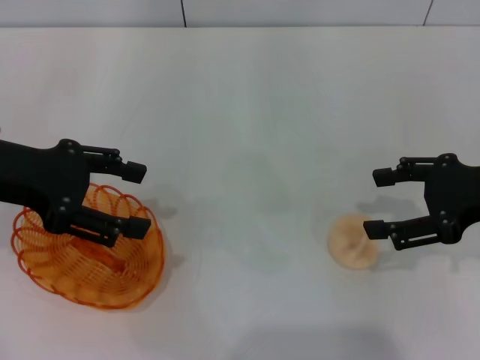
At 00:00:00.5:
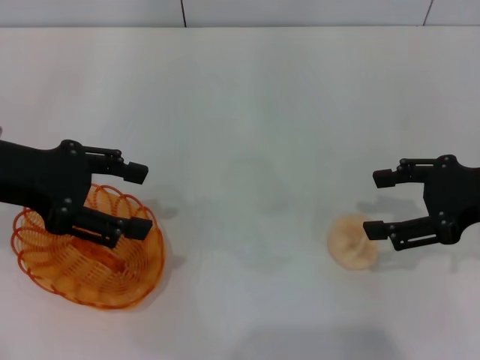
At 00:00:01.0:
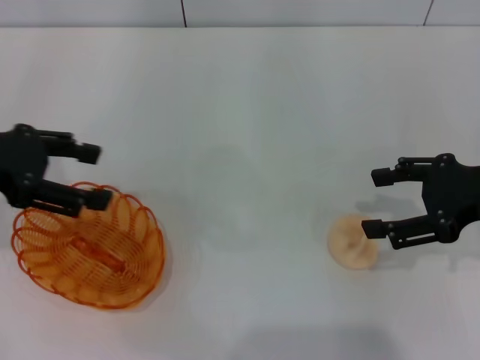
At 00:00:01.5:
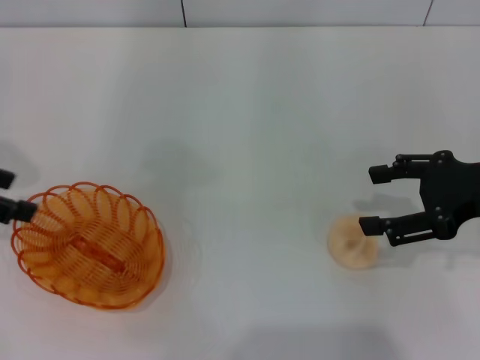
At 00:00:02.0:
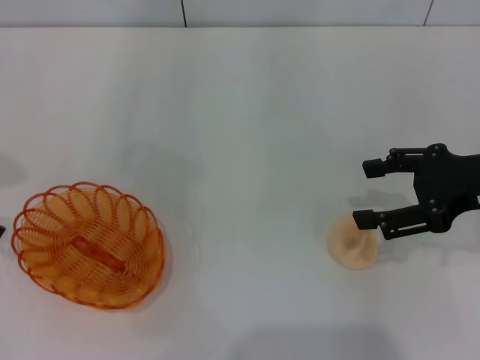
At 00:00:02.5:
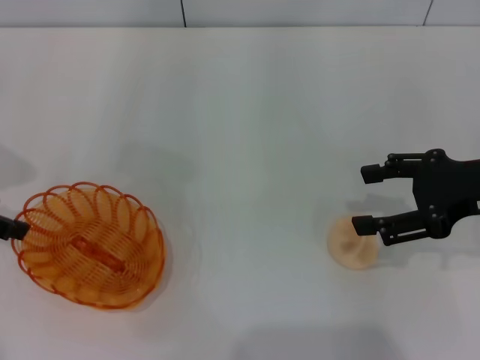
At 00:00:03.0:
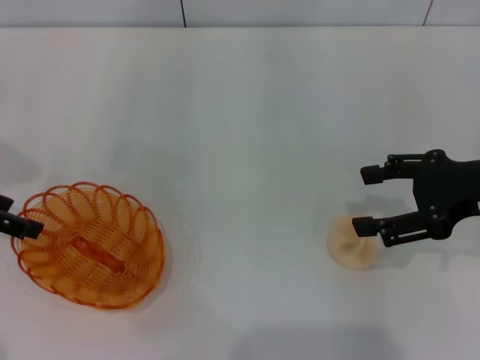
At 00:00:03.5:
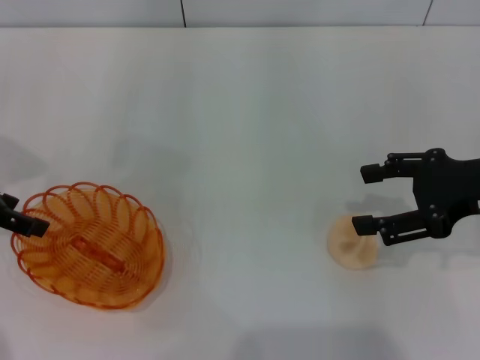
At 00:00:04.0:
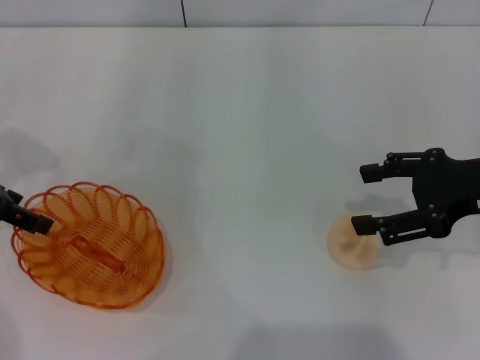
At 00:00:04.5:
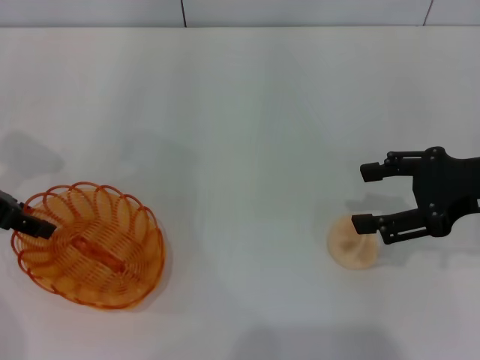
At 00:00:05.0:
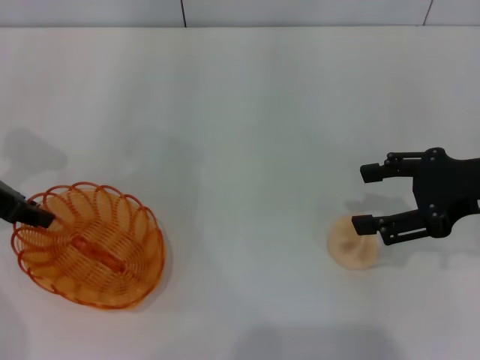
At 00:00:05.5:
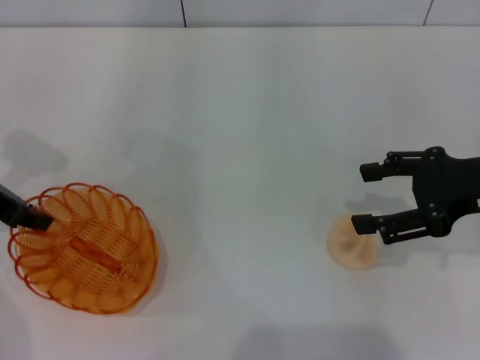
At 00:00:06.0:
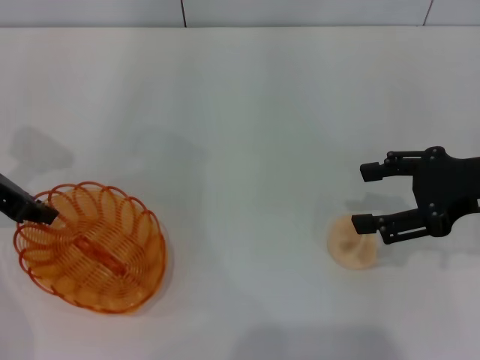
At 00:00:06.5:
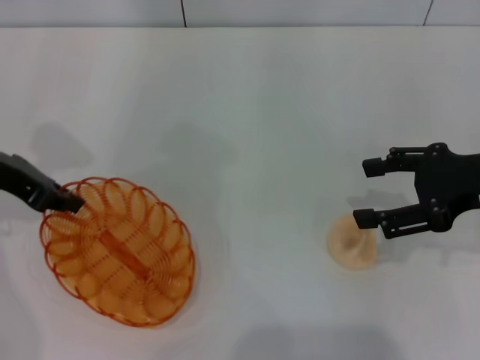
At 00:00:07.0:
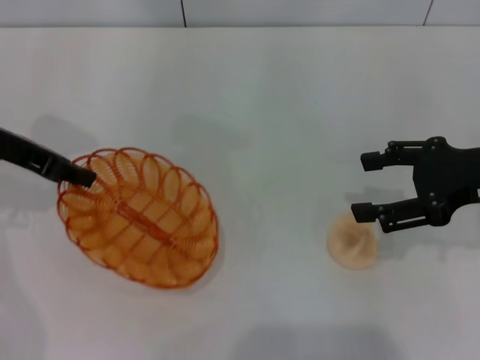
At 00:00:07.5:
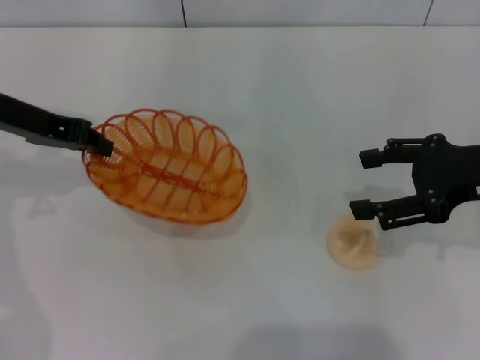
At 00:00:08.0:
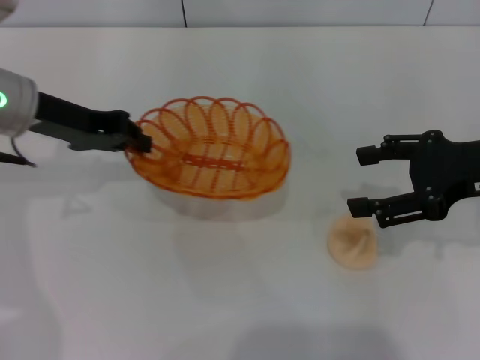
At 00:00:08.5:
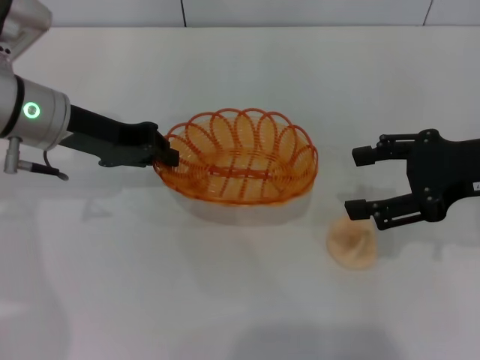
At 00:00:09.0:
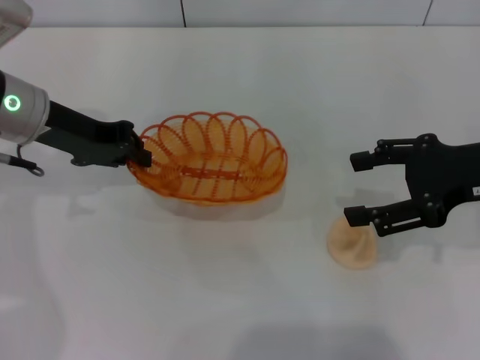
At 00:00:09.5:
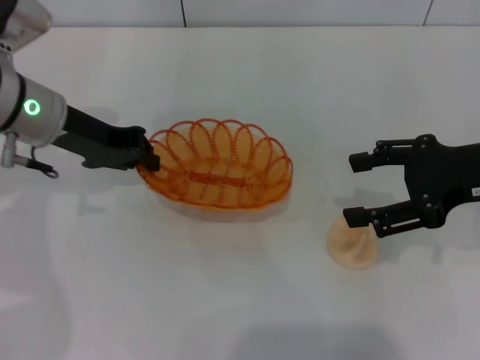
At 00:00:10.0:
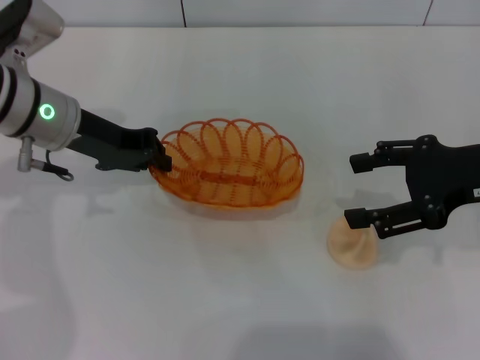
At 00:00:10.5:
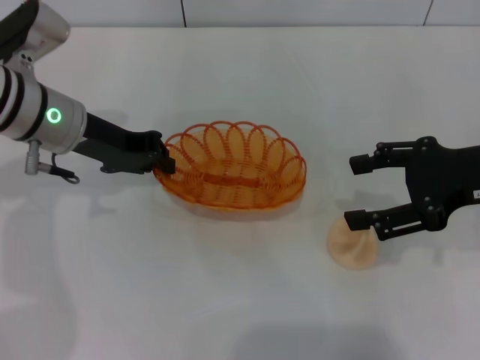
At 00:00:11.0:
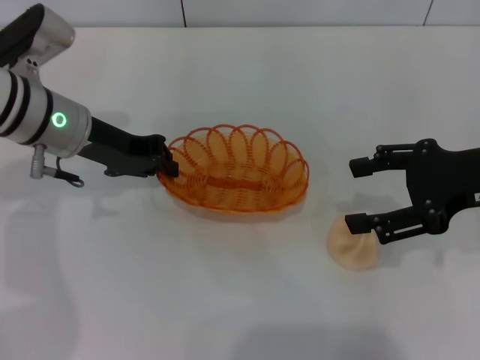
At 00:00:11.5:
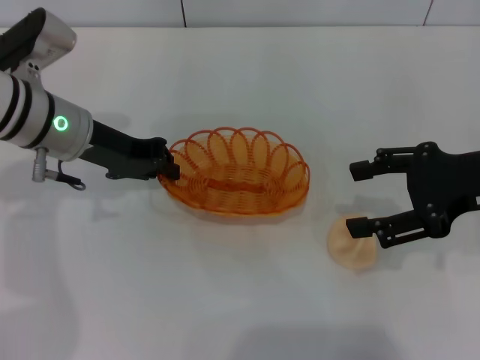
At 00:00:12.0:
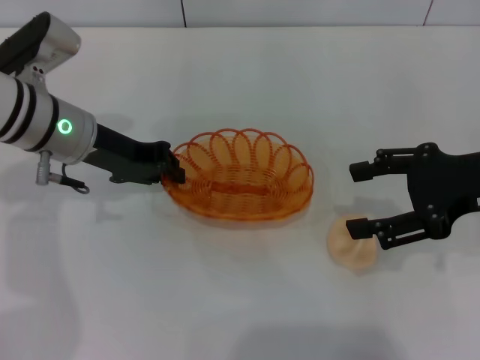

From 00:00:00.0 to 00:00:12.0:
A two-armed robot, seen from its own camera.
Step, from 00:00:00.0 to 00:00:07.0: Pick up the basket with the left gripper.
From 00:00:00.0 to 00:00:02.0: The left gripper travels to the left by about 10 cm.
From 00:00:02.0 to 00:00:04.0: The left gripper changes place by some 5 cm.
From 00:00:04.0 to 00:00:06.0: The left gripper closes.
From 00:00:06.0 to 00:00:08.0: The left gripper moves to the right, some 5 cm.
From 00:00:08.0 to 00:00:12.0: There are only small adjustments of the grippers.

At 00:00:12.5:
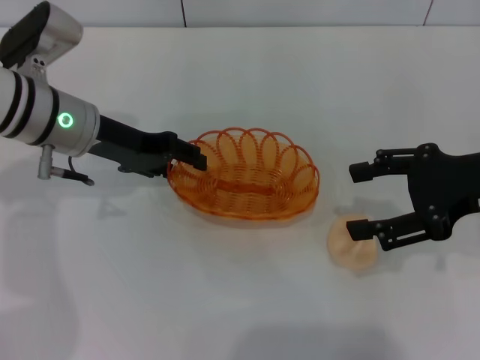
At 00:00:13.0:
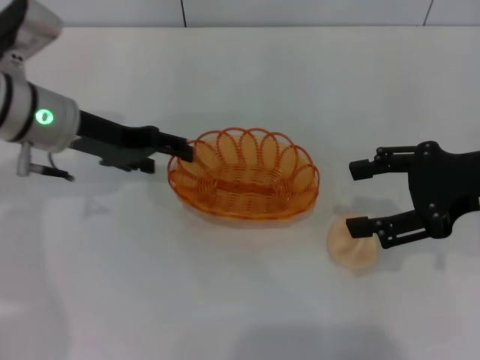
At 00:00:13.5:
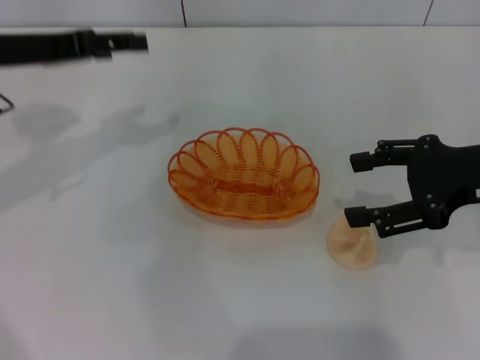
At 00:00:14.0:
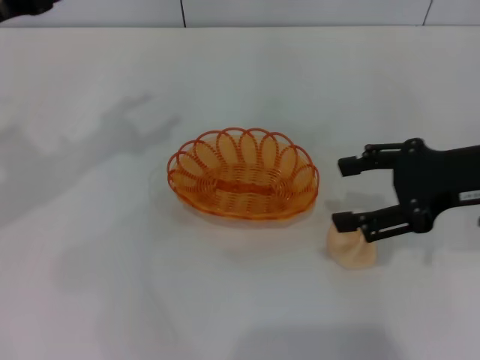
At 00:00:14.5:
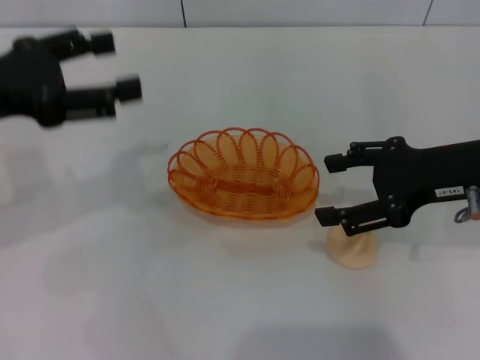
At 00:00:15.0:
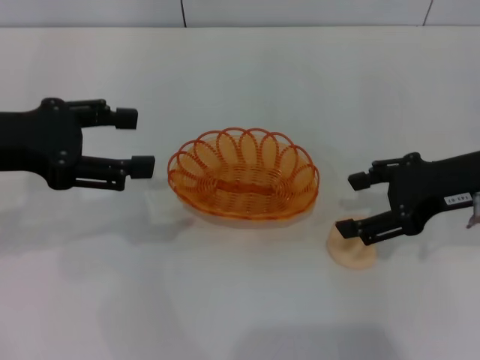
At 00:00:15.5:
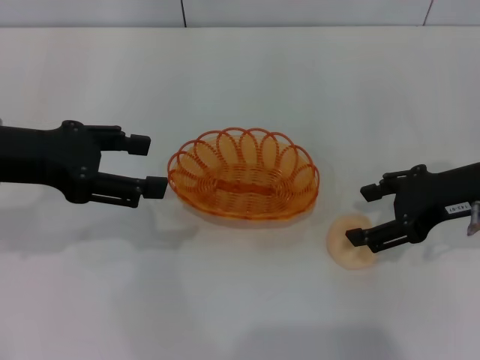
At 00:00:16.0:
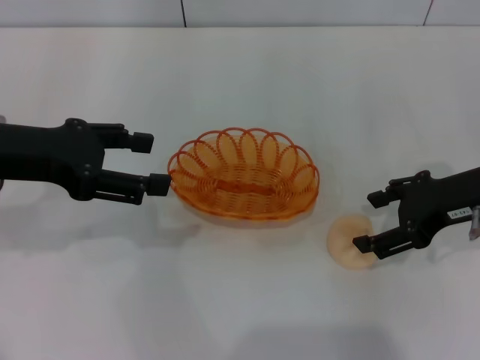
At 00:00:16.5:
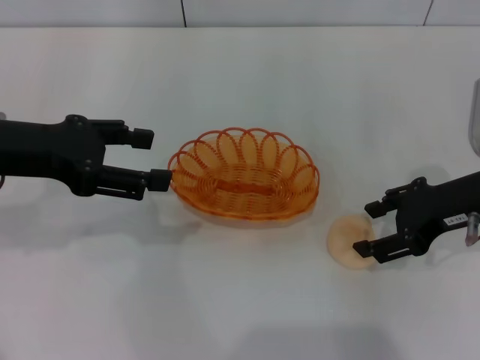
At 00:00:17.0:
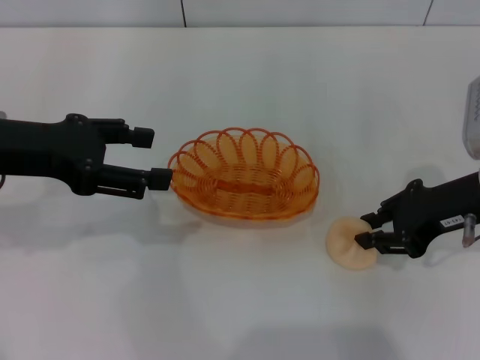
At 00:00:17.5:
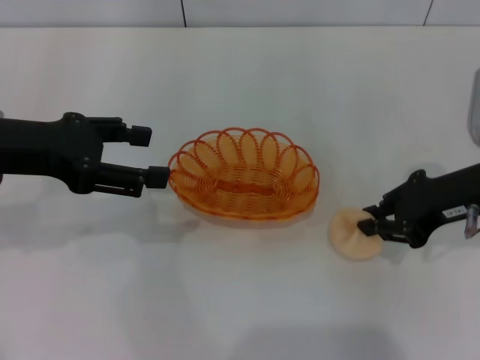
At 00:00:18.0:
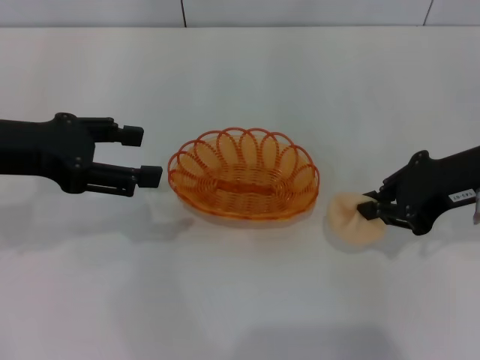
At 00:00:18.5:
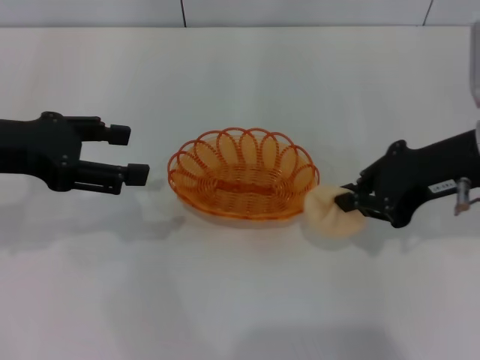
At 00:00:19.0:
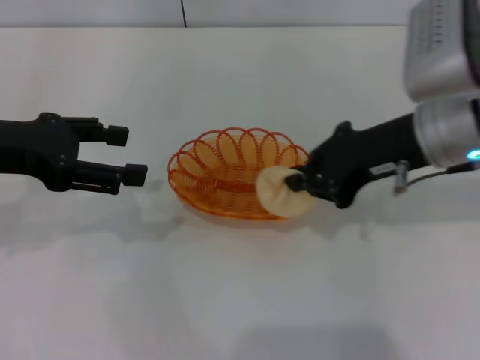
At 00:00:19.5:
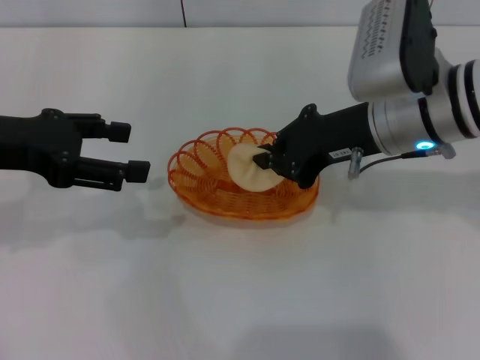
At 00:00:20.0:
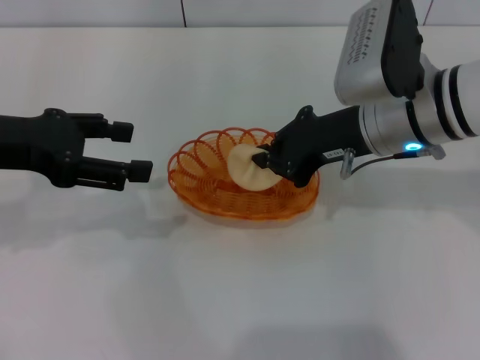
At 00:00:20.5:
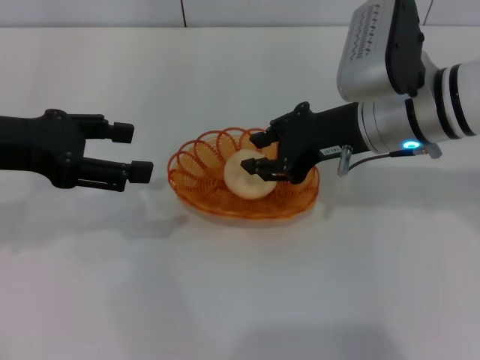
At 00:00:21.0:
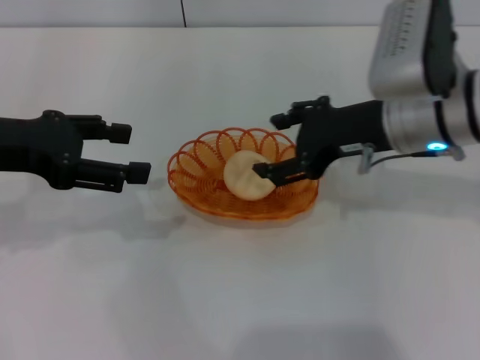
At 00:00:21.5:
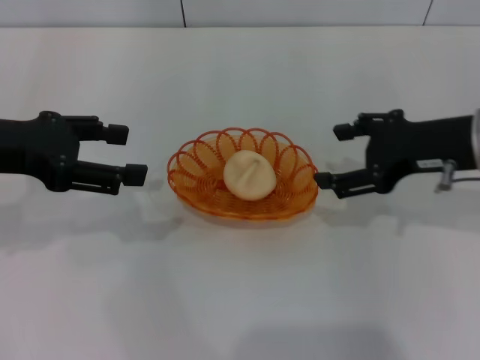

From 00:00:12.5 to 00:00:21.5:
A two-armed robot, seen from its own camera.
Step, from 00:00:13.5 to 00:00:17.5: Pick up the egg yolk pastry with the right gripper.
Step, from 00:00:18.5 to 00:00:21.0: Place the egg yolk pastry into the basket with the right gripper.
From 00:00:12.5 to 00:00:14.5: The left gripper shifts about 15 cm to the left, backward and upward, and opens its fingers.
From 00:00:14.5 to 00:00:17.0: The right gripper closes its fingers.
From 00:00:17.0 to 00:00:19.5: The right gripper is displaced to the left by approximately 10 cm, and closes.
From 00:00:19.5 to 00:00:21.5: The right gripper heads to the right, covering some 10 cm, and opens.

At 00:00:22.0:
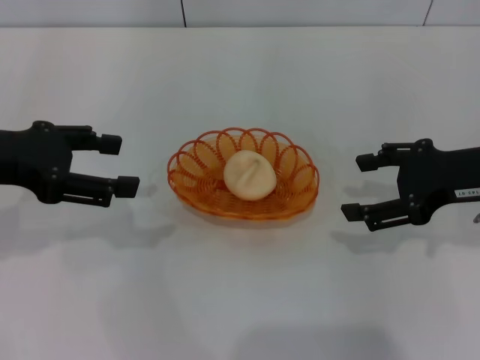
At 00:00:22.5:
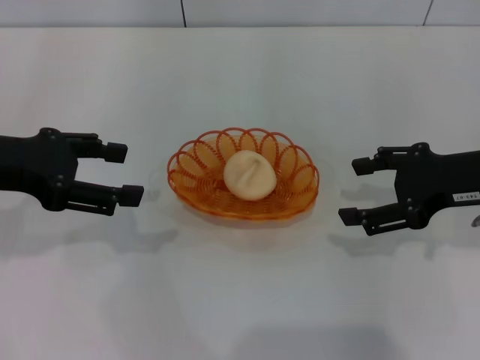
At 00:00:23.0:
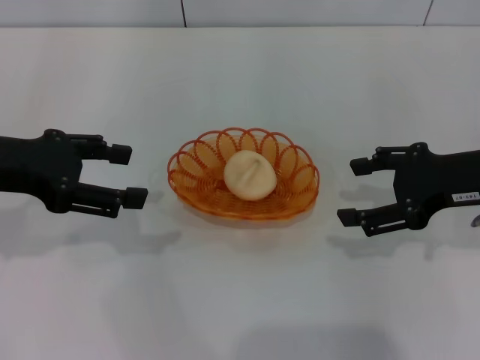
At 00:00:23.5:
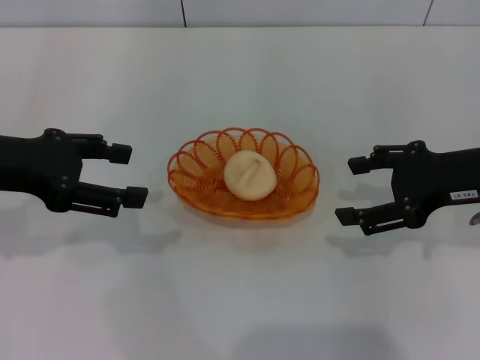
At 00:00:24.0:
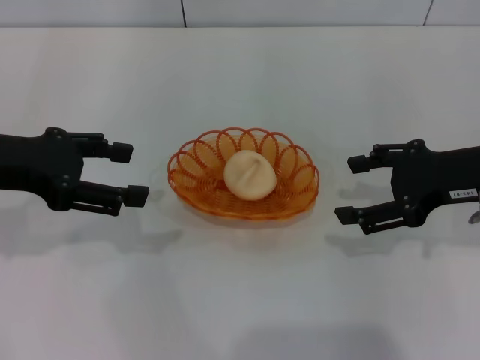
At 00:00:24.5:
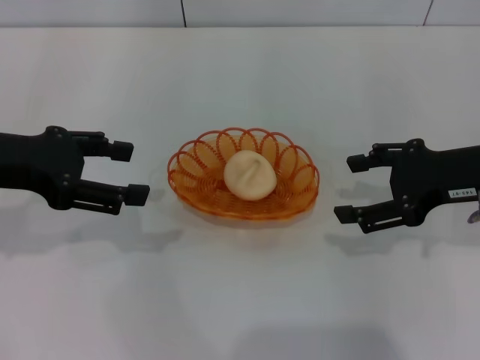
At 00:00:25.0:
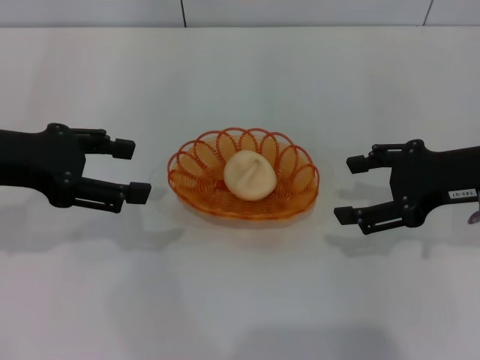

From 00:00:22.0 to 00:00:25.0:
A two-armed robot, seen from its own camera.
From 00:00:22.0 to 00:00:25.0: Both grippers stay put.
